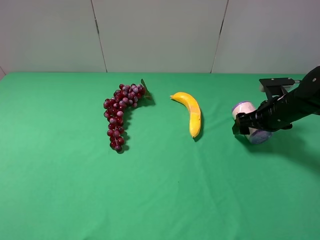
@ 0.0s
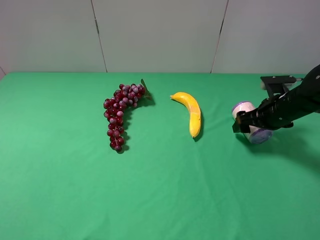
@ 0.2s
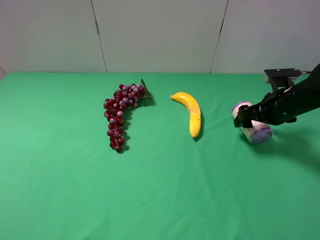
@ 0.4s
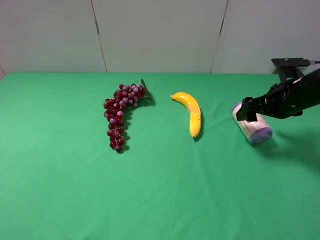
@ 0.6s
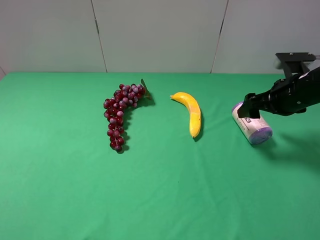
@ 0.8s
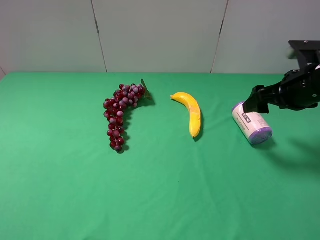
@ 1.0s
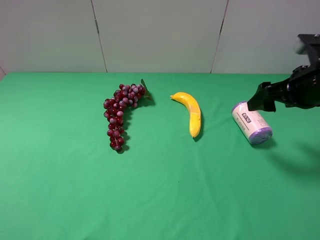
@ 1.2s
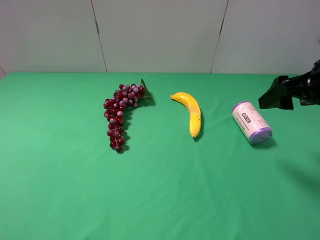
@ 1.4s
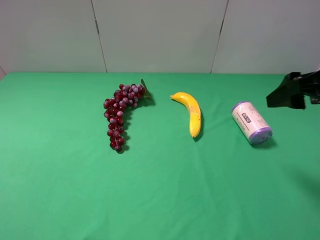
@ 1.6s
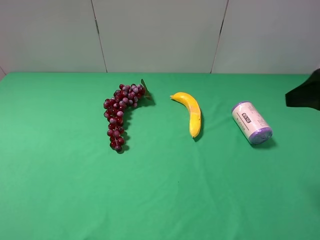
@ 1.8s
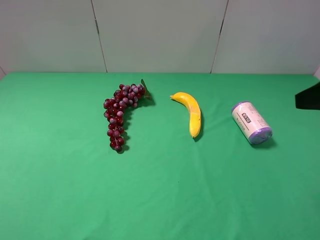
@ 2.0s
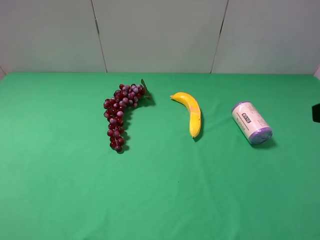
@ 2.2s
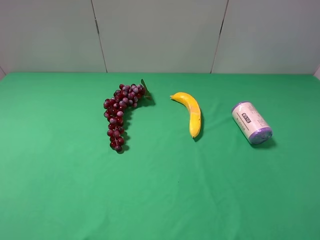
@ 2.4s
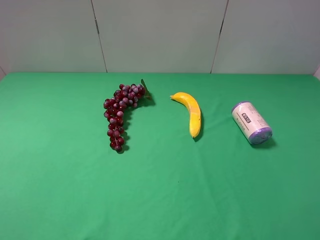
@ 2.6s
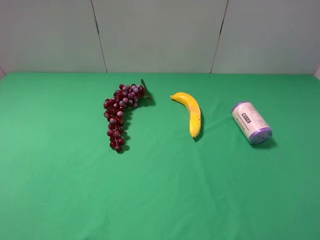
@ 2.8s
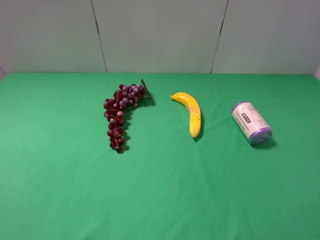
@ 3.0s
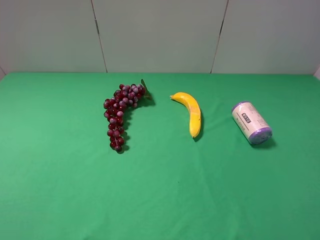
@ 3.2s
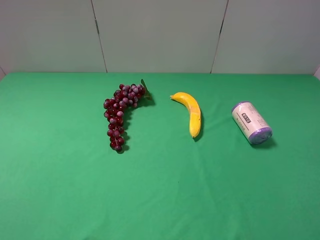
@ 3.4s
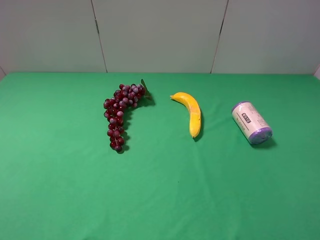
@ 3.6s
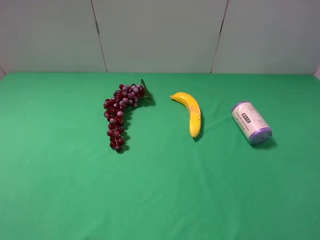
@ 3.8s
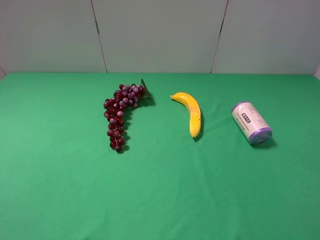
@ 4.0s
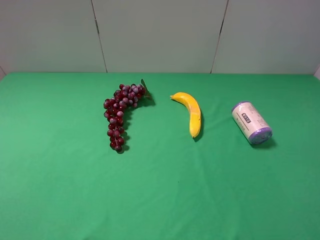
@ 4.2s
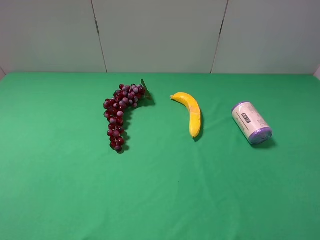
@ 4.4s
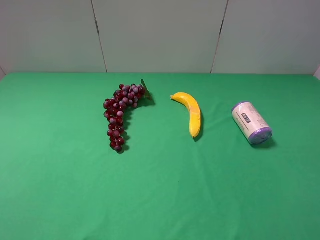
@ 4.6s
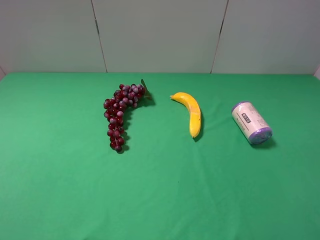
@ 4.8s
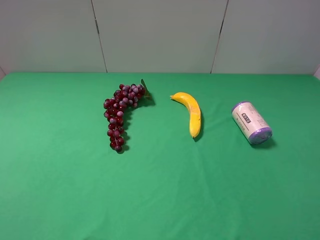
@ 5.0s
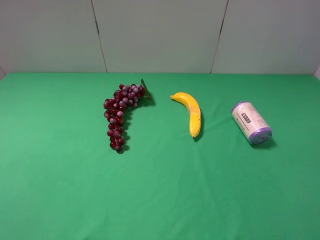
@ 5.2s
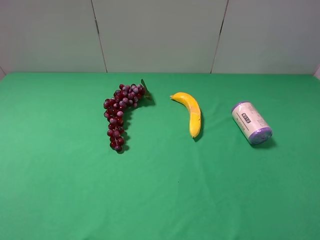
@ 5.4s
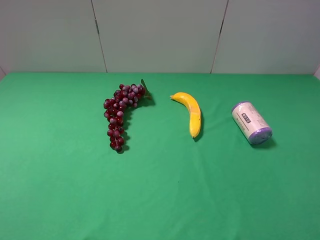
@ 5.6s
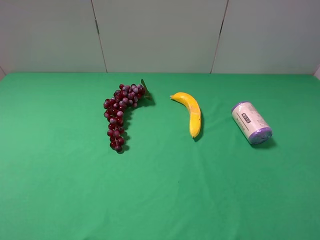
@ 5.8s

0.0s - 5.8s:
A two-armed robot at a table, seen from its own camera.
Task of the whole recording: use the left gripper to pick up the item and transfer it from the left gripper to the right gripper.
0.0s - 1.4s: The right gripper moves upward and backward, approximately 20 cm.
1.4s - 2.8s: The right gripper is displaced backward by approximately 15 cm.
4.4s - 5.8s: The two grippers keep their place.
